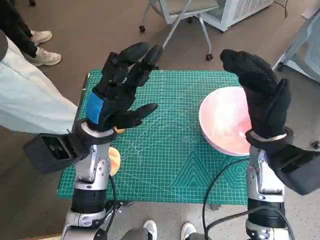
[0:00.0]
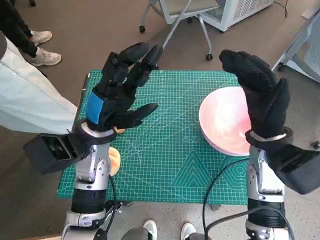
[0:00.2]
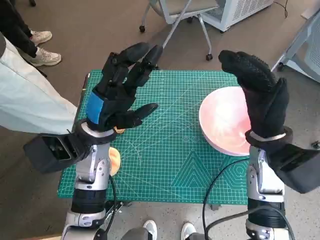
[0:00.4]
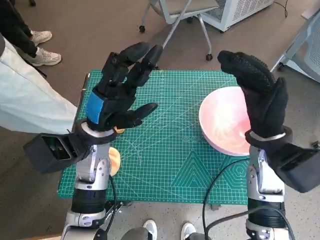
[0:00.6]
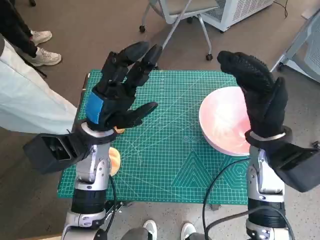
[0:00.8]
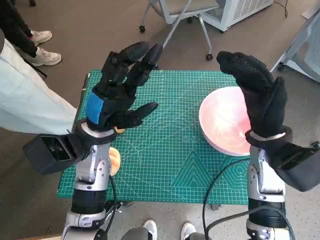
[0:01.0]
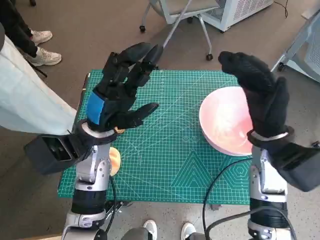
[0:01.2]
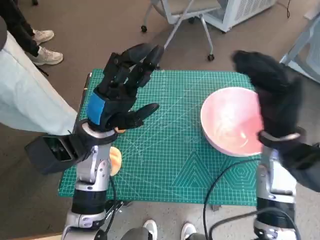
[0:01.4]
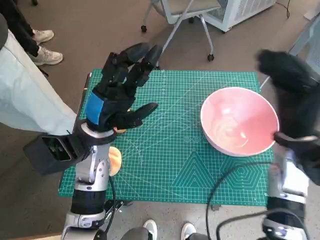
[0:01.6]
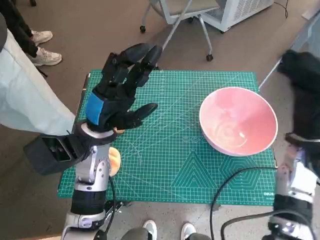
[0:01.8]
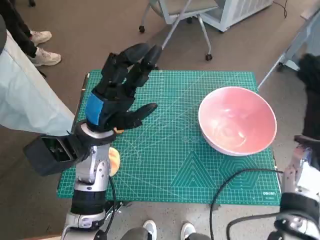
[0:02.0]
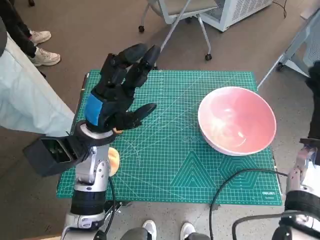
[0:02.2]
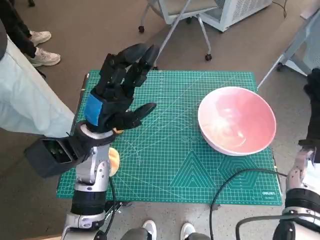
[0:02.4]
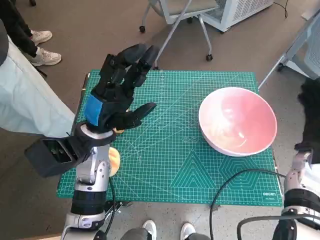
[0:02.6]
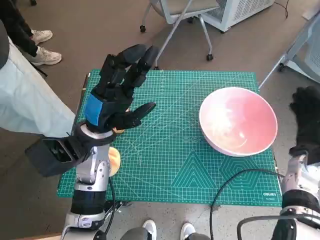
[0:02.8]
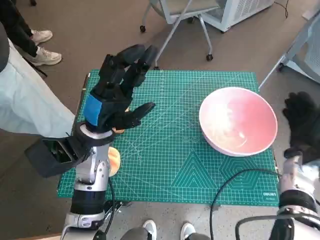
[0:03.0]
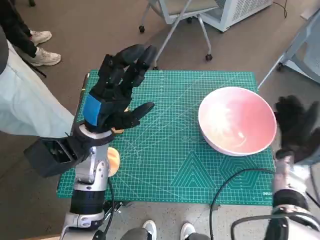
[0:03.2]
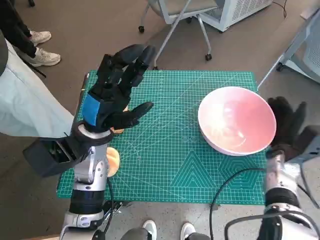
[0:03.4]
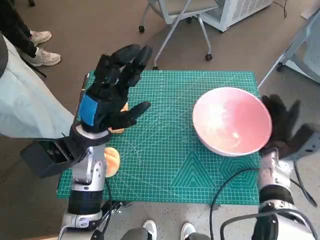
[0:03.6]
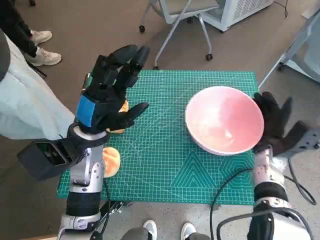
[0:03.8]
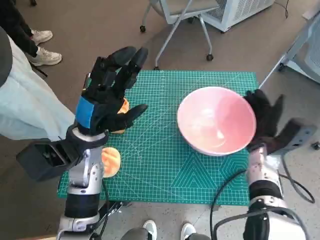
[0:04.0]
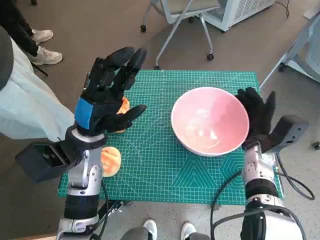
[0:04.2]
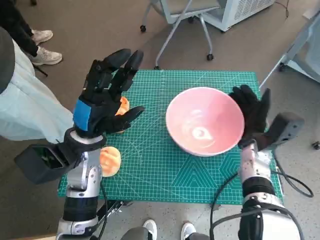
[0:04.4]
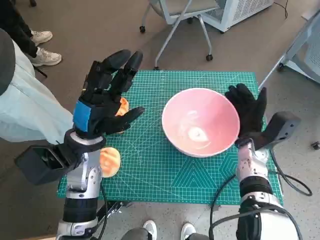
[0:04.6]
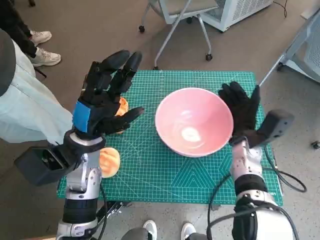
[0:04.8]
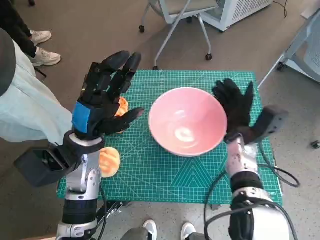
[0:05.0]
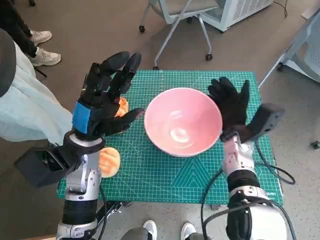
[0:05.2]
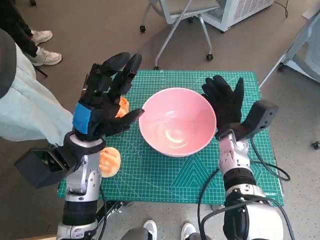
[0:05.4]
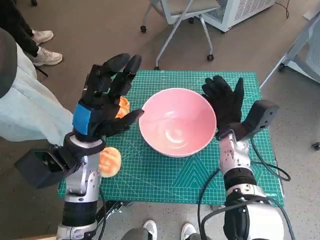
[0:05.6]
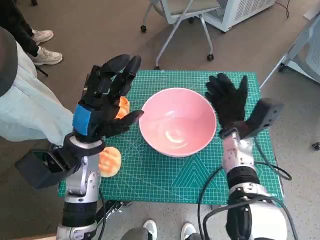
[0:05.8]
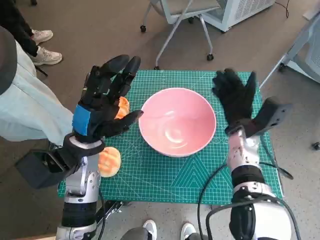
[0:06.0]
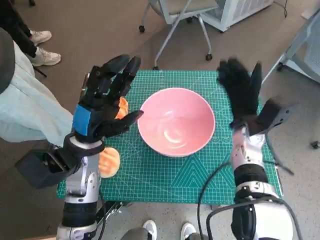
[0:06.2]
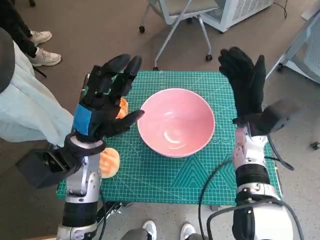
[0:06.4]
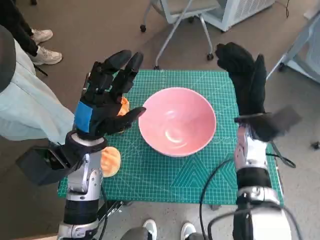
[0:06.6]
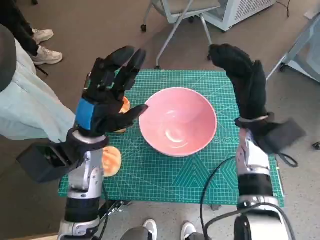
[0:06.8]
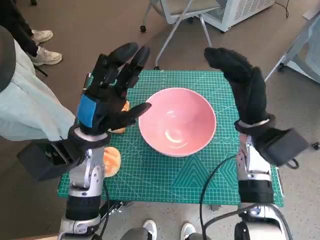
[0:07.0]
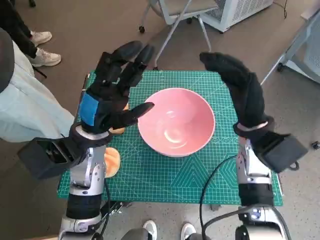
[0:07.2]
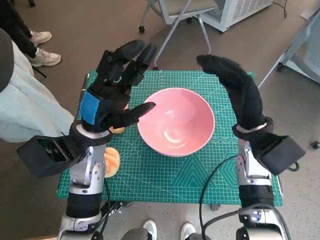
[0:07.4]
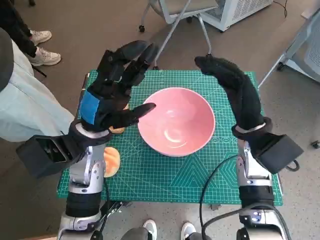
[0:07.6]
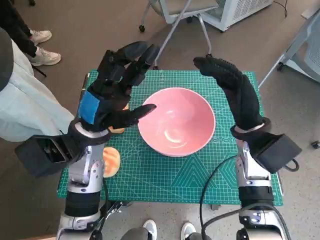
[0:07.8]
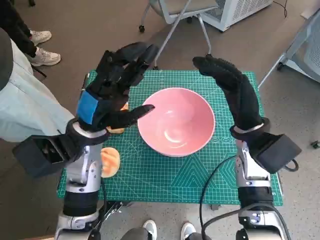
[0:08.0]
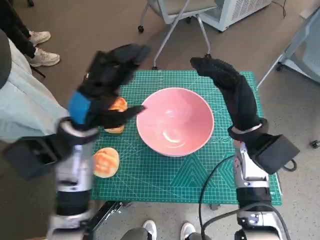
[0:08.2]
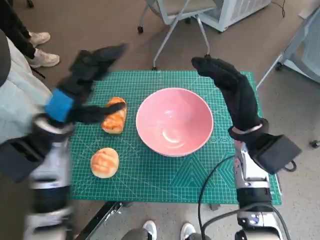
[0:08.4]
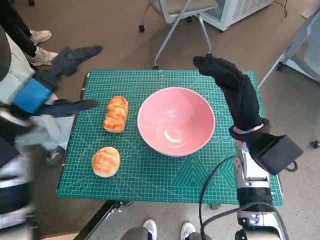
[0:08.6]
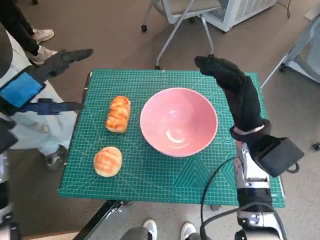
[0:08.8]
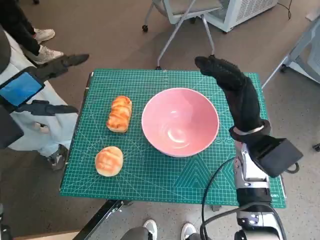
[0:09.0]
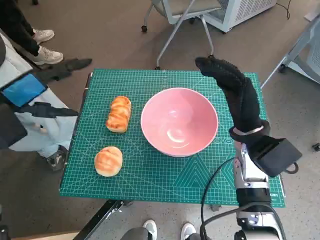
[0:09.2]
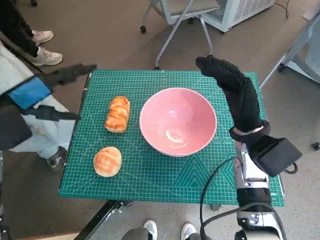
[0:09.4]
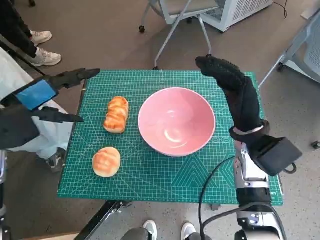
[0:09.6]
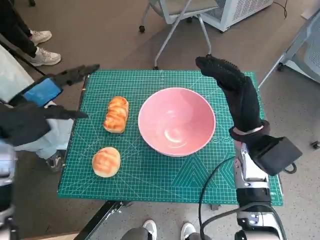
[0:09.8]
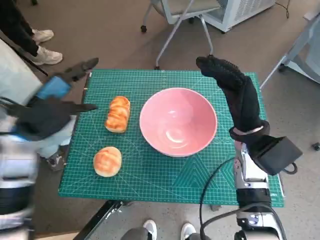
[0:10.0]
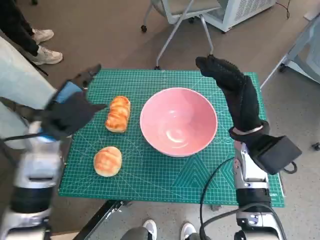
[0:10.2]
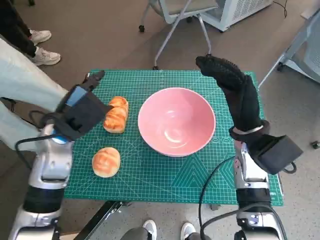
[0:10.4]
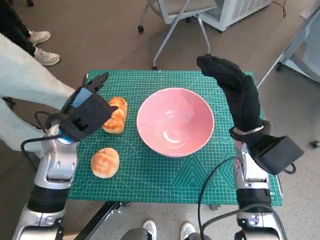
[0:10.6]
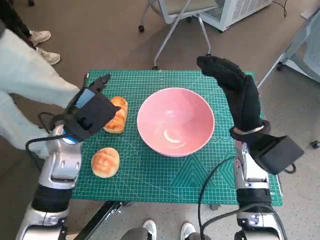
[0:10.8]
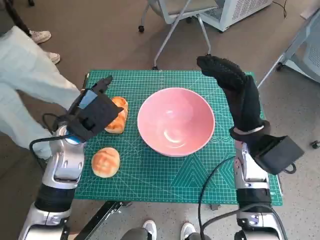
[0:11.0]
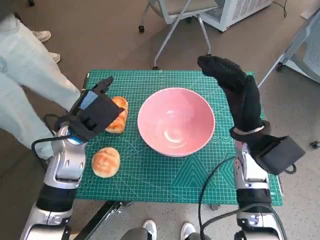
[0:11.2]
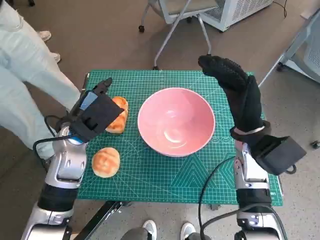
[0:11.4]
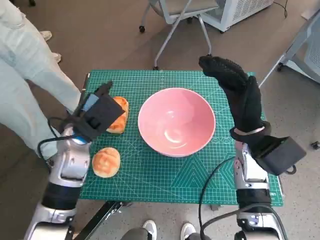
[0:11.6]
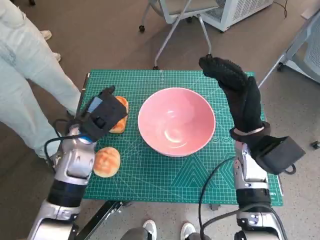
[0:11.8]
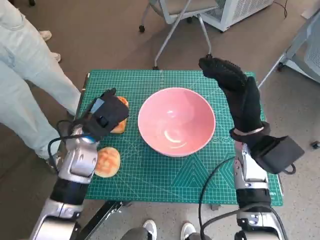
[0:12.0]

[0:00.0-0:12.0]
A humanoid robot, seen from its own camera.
Task of the whole recording: Push the bowl into the center of the table and put the bread into the bowl.
Step, 0:00.0 to 0:06.4: Move the pink bowl to the center of table with right hand.
0:01.6 to 0:03.0: The right hand travels downward and to the right by some 10 cm.
0:03.0 to 0:04.4: The right hand heads to the left, covering about 10 cm.
0:06.0 to 0:07.6: The right hand is displaced upward by about 5 cm.
0:07.6 to 0:09.0: The left hand moves to the left and upward, about 15 cm.
0:09.0 to 0:10.4: The left hand is displaced downward and to the right by roughly 10 cm.
0:10.4 to 0:12.0: The left hand changes place by roughly 5 cm.

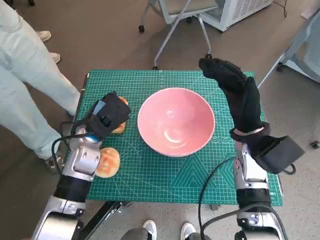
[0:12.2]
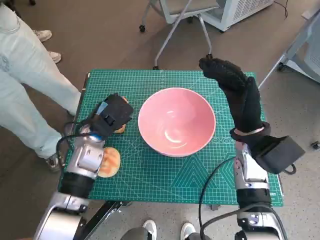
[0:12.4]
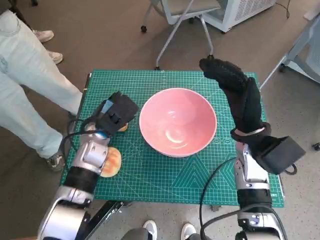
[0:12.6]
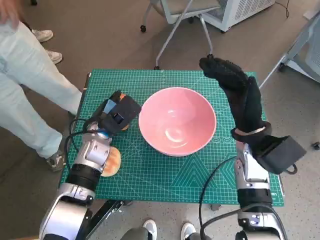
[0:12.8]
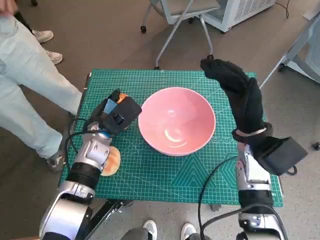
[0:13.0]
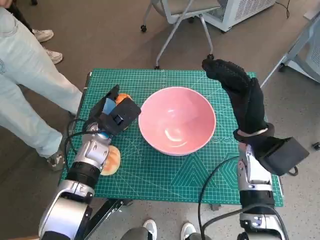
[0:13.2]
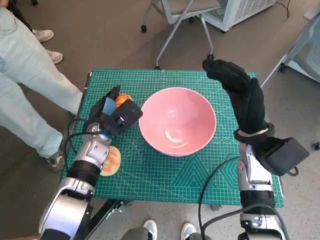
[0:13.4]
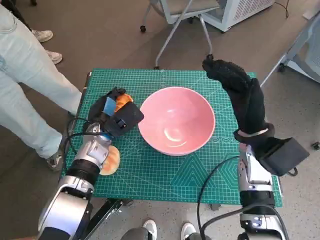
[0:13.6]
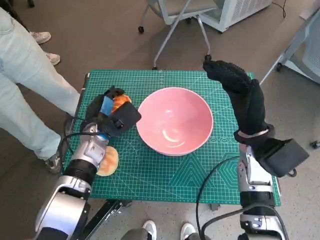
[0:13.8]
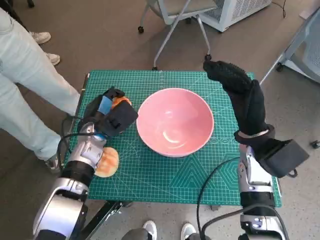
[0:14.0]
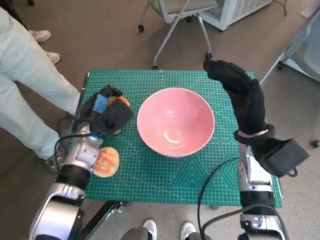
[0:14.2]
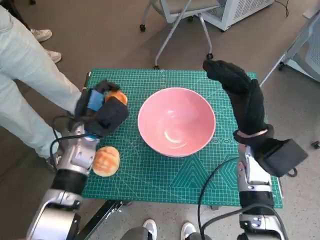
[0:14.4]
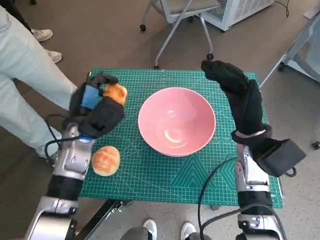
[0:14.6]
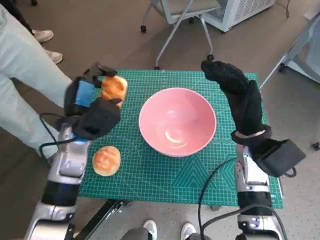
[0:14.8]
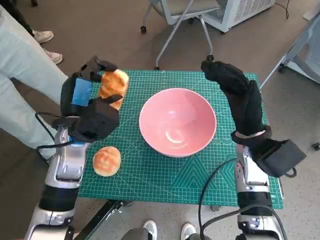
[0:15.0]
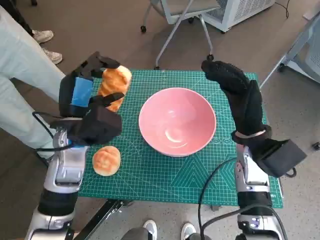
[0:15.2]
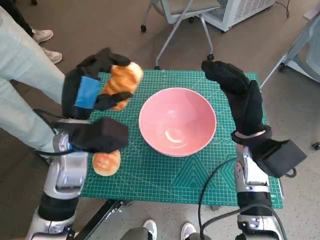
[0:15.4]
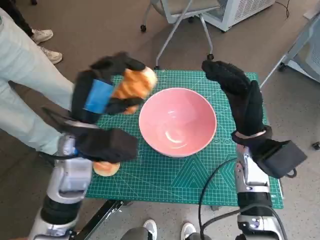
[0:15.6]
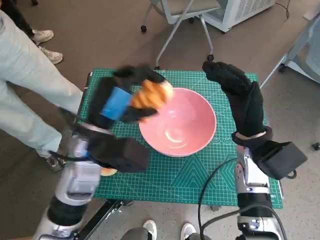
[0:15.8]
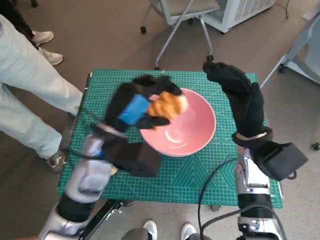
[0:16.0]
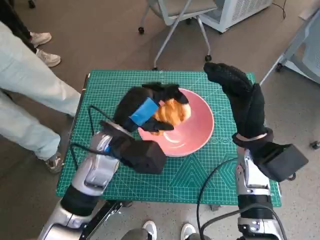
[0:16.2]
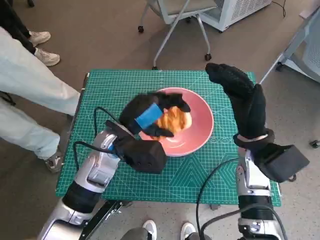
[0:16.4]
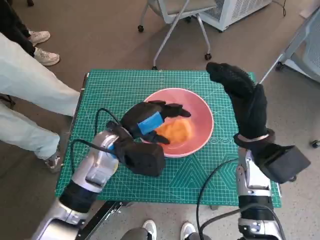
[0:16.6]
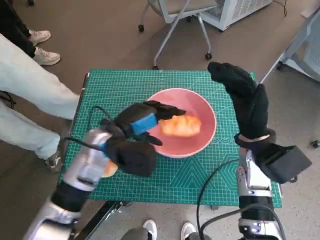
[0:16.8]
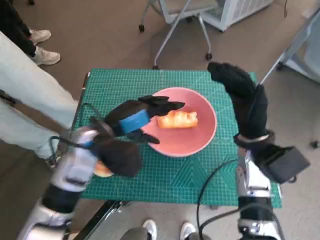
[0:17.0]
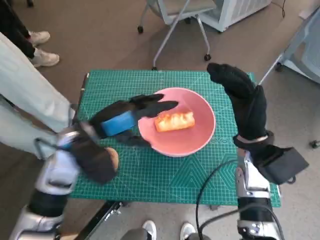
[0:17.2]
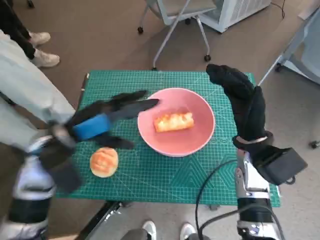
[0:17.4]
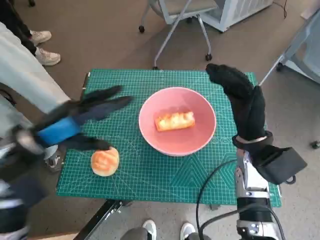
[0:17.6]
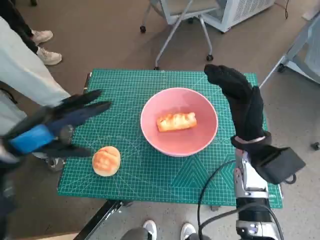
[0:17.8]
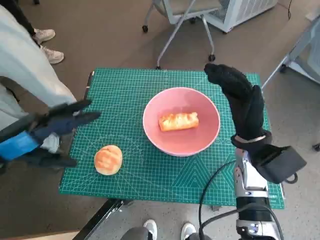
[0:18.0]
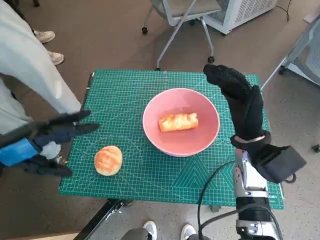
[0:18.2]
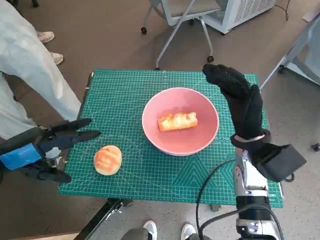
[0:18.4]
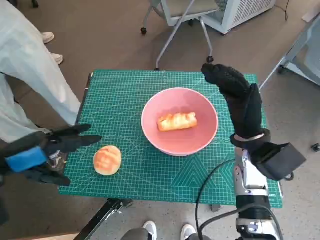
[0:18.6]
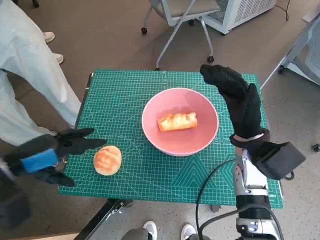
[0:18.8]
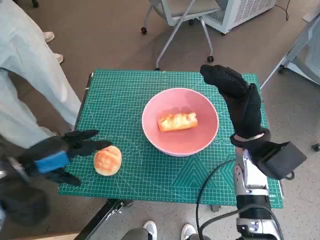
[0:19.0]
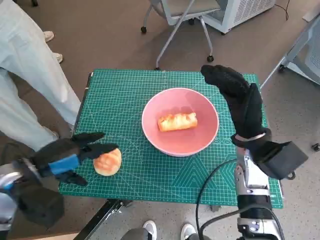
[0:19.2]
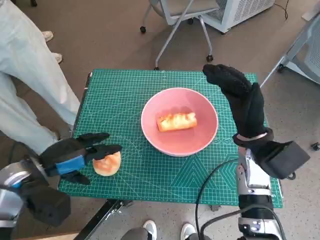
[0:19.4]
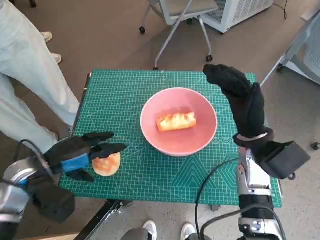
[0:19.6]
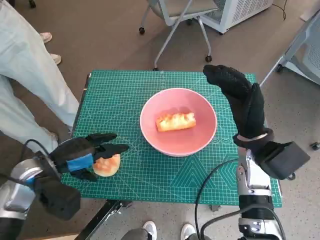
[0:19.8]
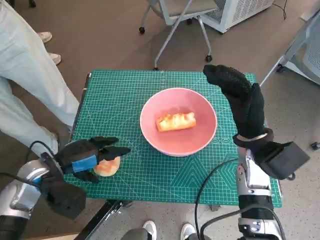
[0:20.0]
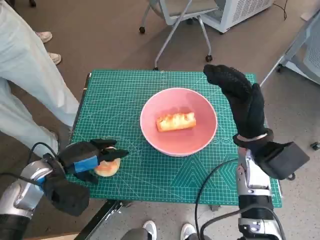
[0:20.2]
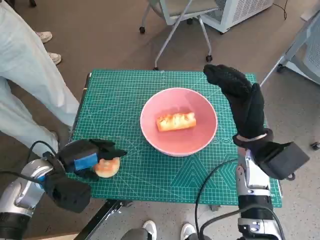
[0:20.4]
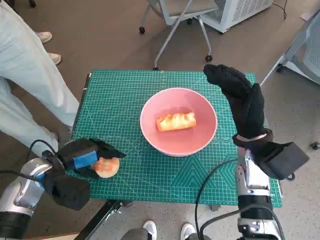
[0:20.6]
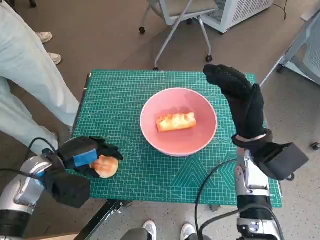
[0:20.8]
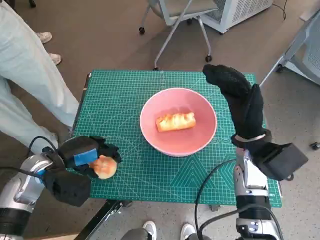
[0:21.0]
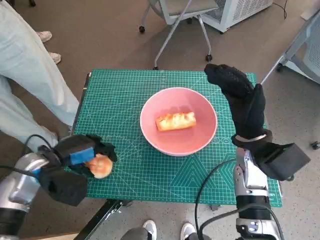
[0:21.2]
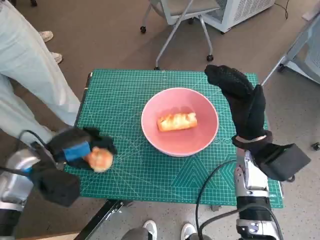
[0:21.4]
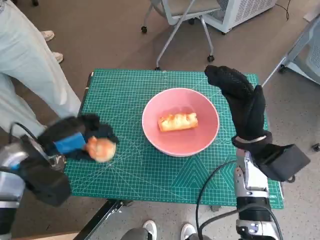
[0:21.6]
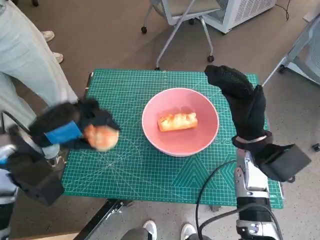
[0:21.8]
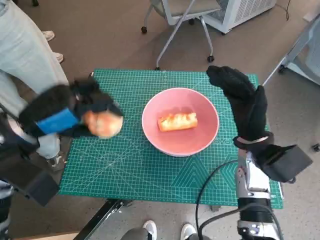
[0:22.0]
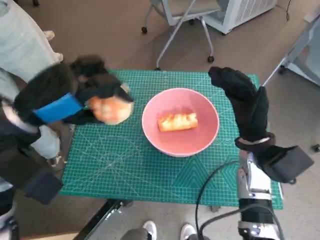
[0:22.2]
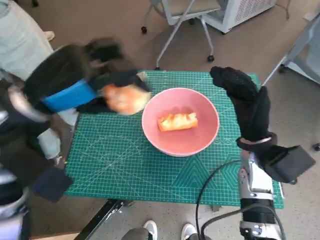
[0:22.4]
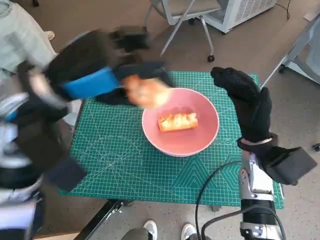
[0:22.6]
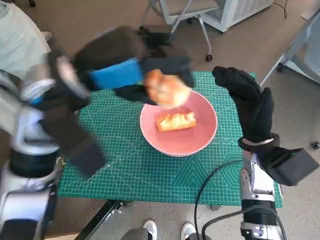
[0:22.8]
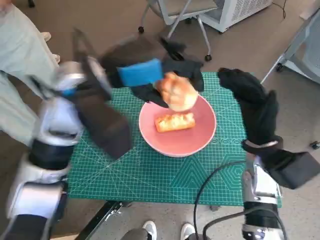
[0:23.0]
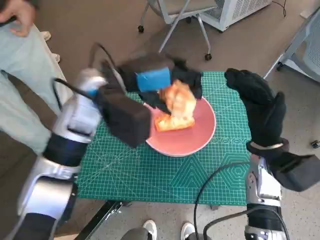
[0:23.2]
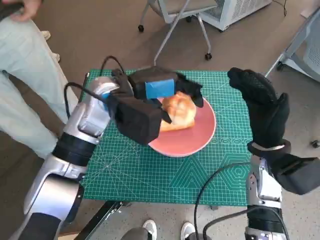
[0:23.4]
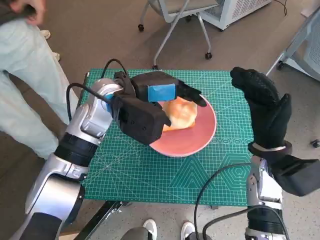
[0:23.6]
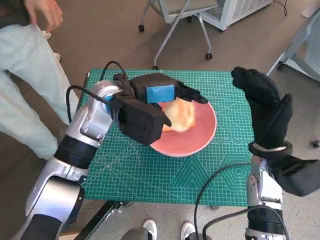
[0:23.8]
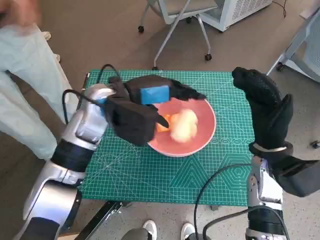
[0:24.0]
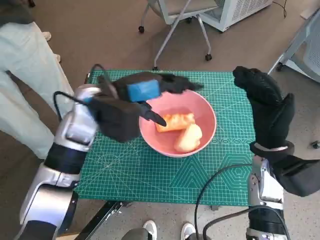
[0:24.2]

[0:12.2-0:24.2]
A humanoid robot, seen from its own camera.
Task of the whole recording: Push the bowl into the center of the table and put the bread into the bowl.
Step, 0:14.0 to 0:17.4: Place the long bread in pink bowl with left hand.
Step, 0:17.6 to 0:20.8: Grasp the round bread with left hand.
Step, 0:21.0 to 0:23.8: Place the round bread in pink bowl with left hand.
0:12.2 to 0:13.8: The hands make only small movements.
0:13.8 to 0:15.2: The left hand moves upward and backward, roughly 10 cm.
0:15.2 to 0:16.6: The left hand shifts some 5 cm to the right.
0:16.6 to 0:18.2: The left hand shifts roughly 20 cm to the left and backward.
0:18.2 to 0:19.8: The left hand moves downward, about 10 cm.
0:19.8 to 0:21.2: The hands make only small movements.
0:21.2 to 0:22.6: The left hand goes approximately 20 cm upward and to the right.
0:22.6 to 0:24.2: The left hand shifts some 10 cm downward and forward.
